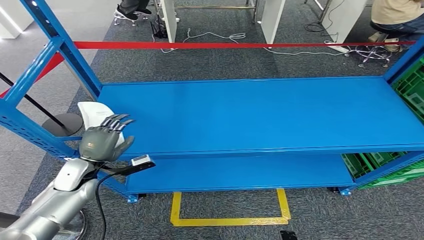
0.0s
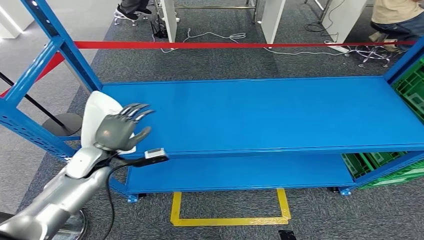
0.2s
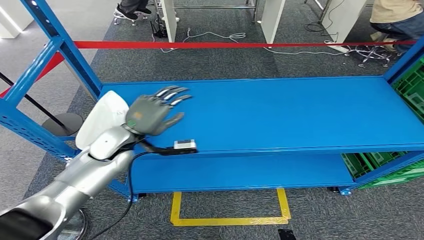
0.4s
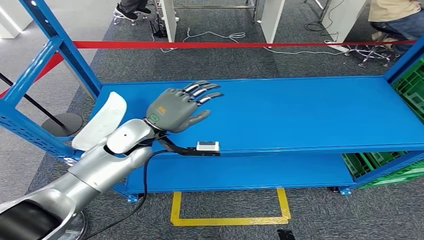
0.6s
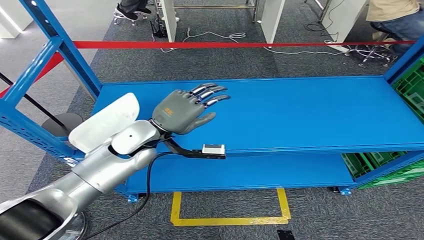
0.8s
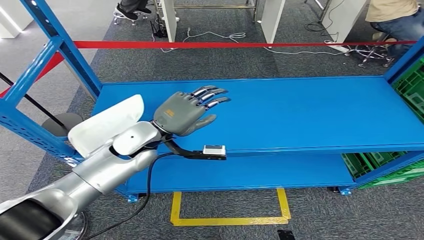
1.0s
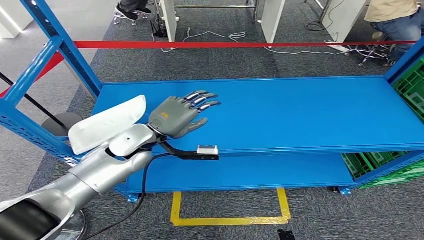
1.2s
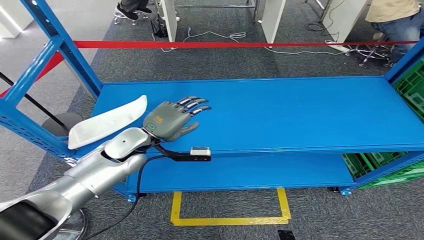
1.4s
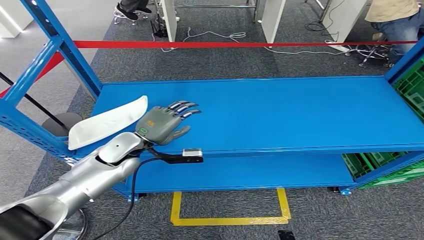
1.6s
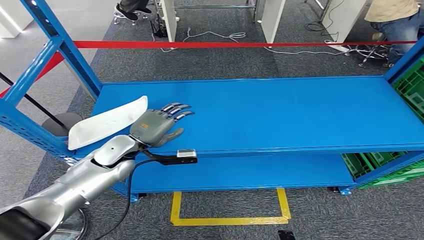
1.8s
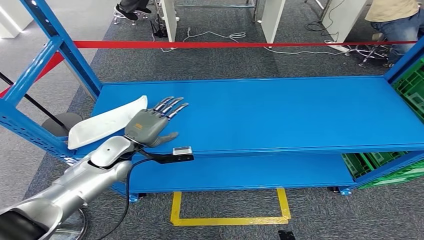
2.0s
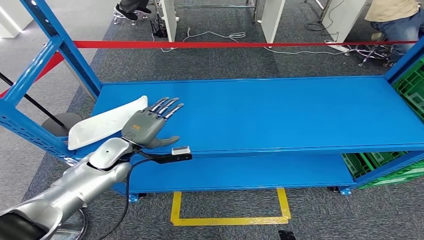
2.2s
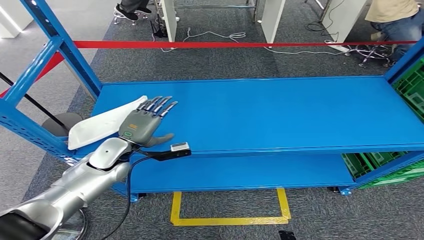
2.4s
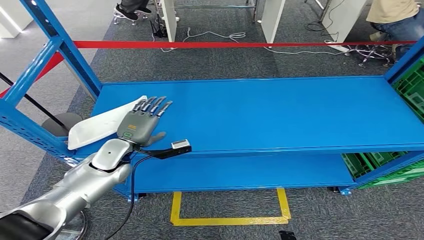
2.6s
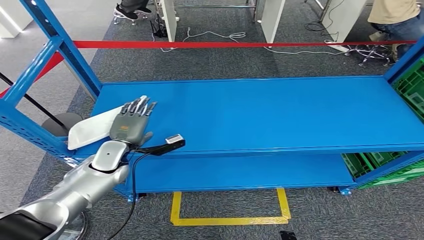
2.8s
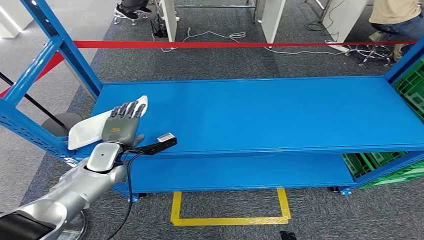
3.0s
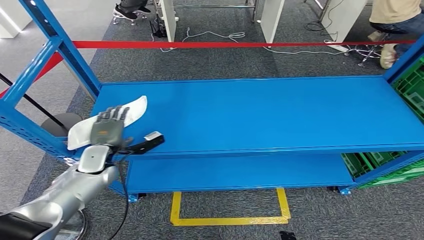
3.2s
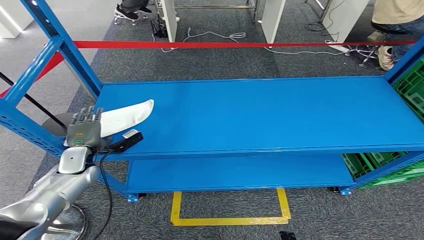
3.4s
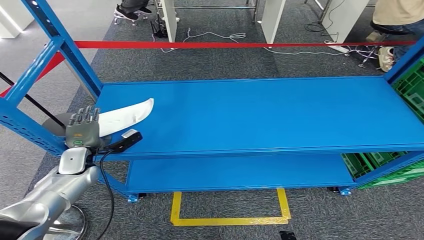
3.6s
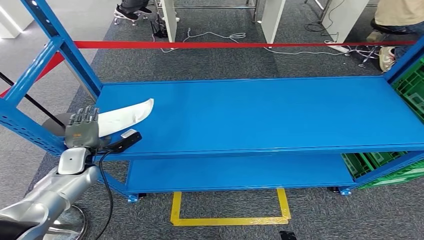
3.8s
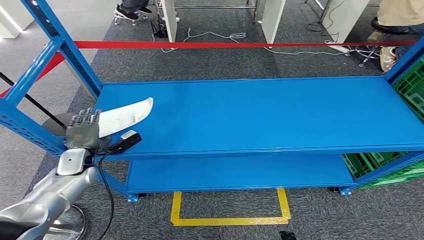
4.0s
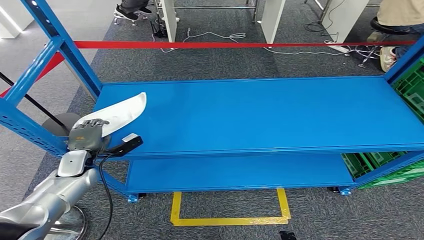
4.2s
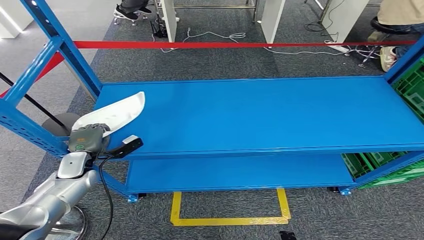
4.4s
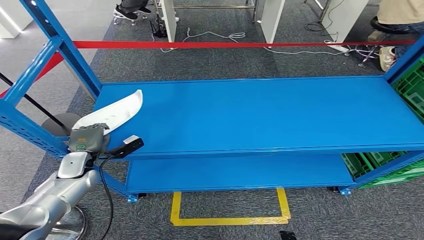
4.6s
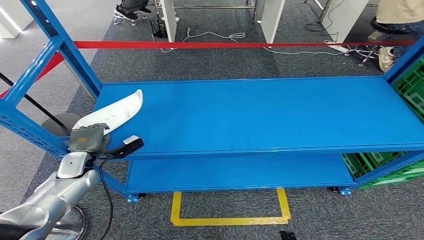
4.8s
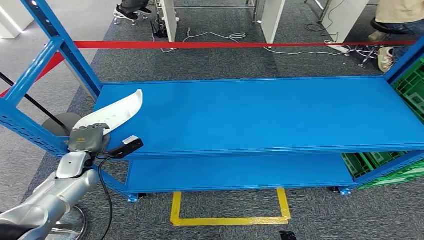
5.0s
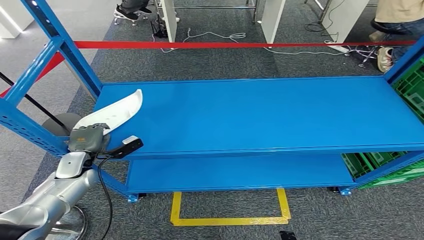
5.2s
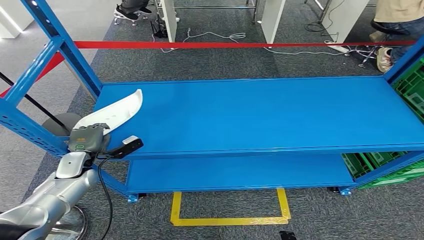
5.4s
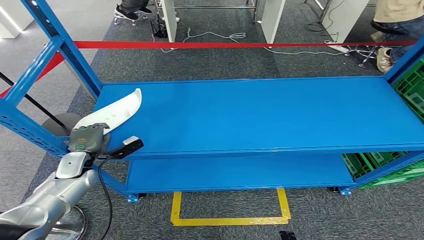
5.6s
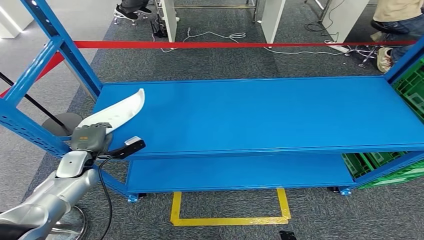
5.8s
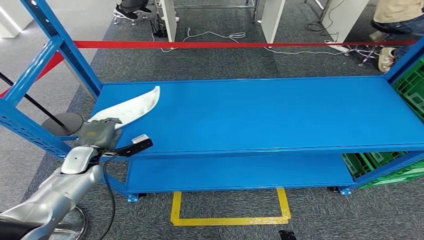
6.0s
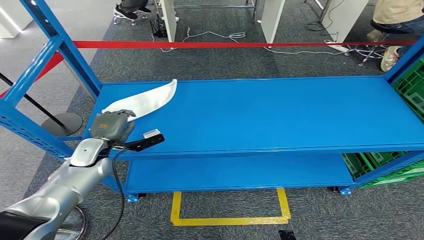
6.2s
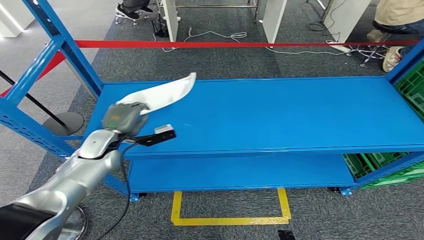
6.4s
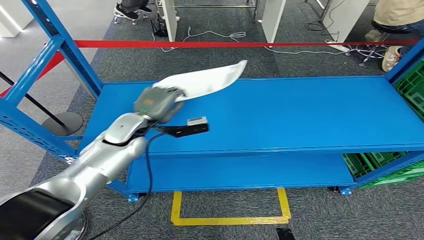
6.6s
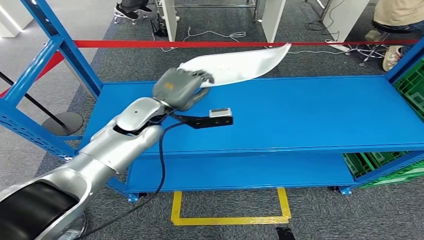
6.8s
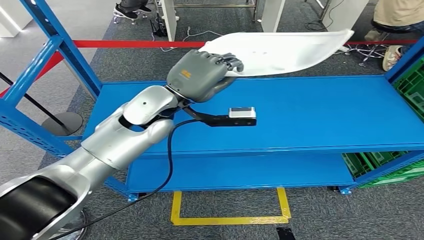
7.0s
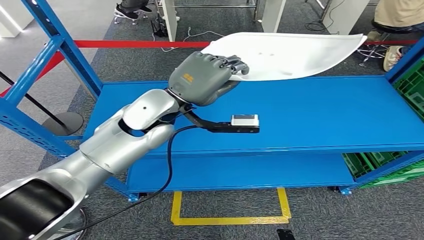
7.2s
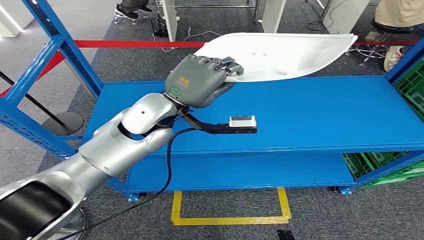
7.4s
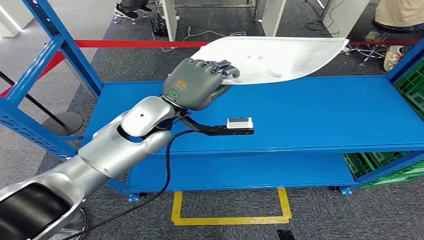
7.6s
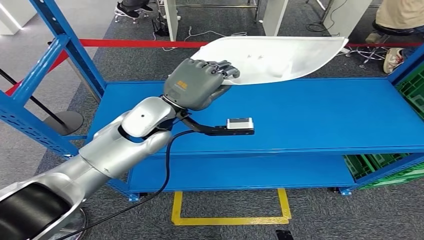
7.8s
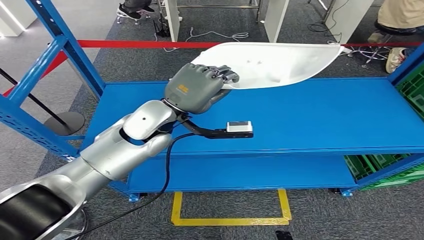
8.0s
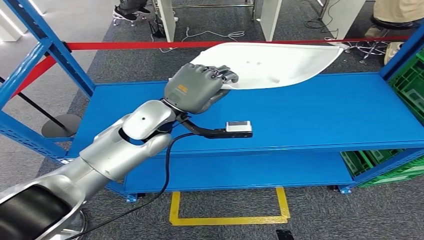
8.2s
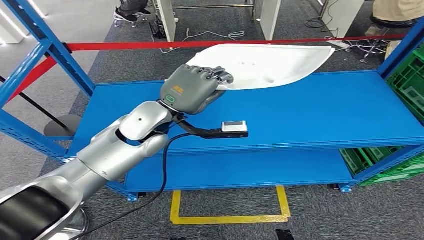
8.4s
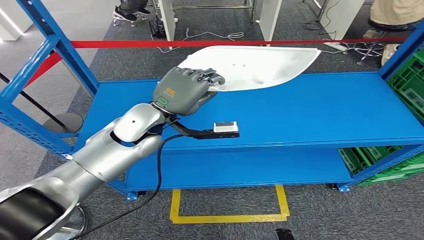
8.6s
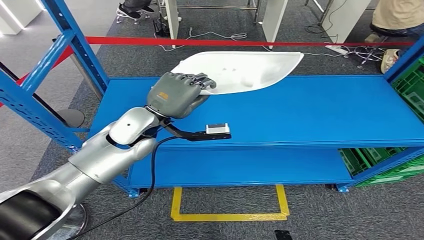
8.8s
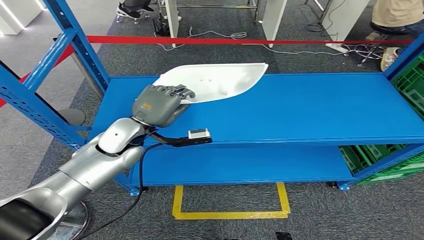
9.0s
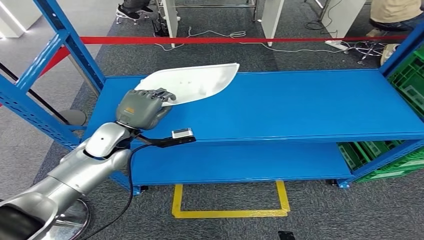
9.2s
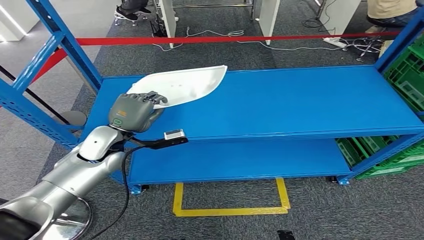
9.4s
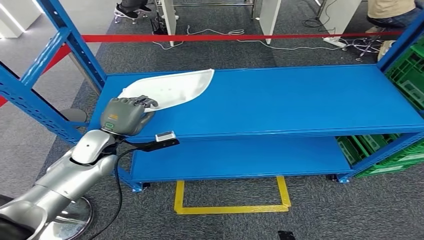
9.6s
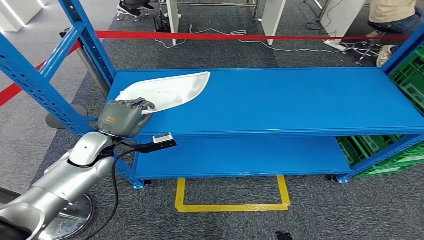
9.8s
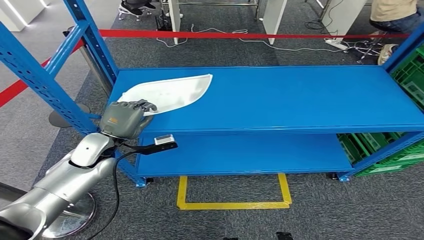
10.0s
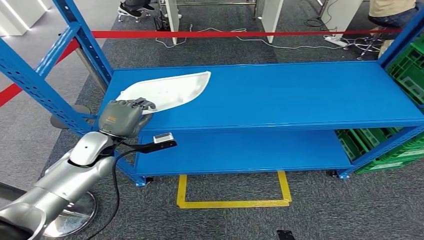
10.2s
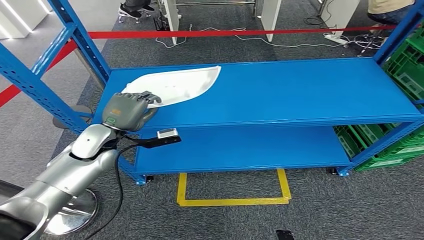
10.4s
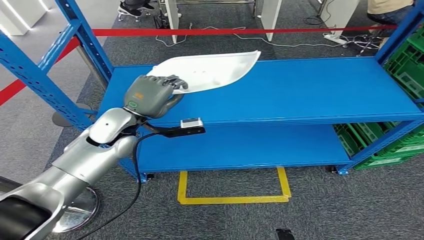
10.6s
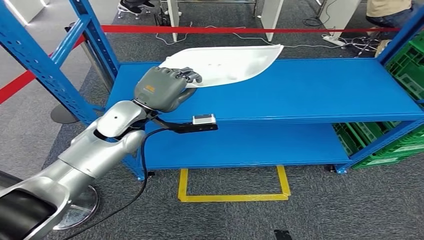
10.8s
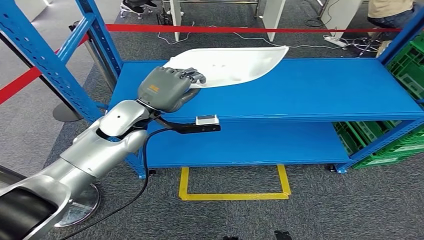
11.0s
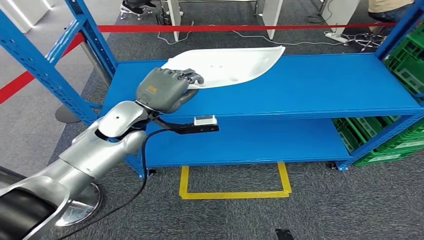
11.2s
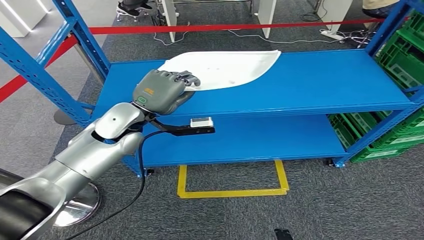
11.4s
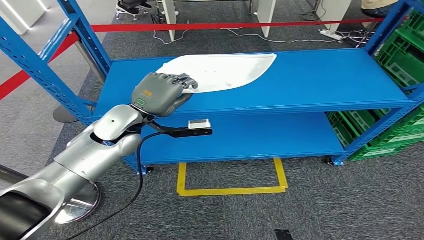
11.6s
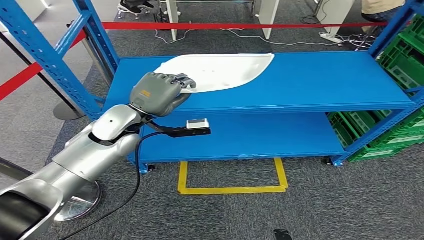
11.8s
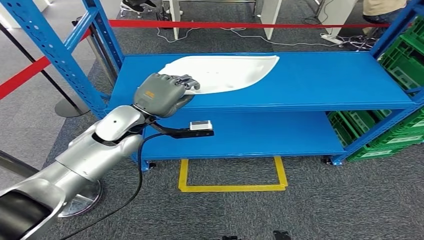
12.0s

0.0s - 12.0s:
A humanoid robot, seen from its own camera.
Step, 0.0s - 7.6s: Pick up the small component from the shelf.
0.0s - 1.6s: The left hand moves to the right and upward, approximately 15 cm.
1.6s - 3.0s: The left hand shifts about 10 cm downward and to the left.
3.0s - 4.4s: The left hand goes about 10 cm to the left.
4.4s - 6.0s: The hands make only small movements.

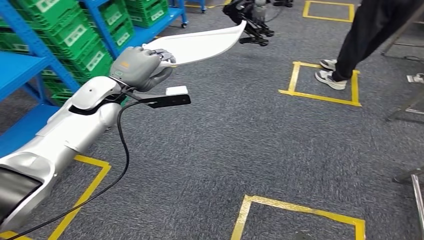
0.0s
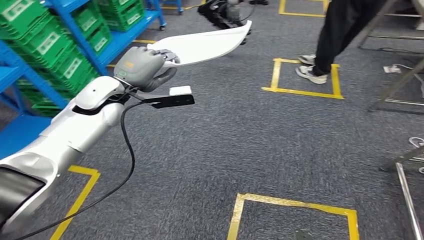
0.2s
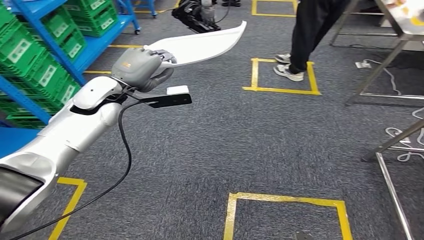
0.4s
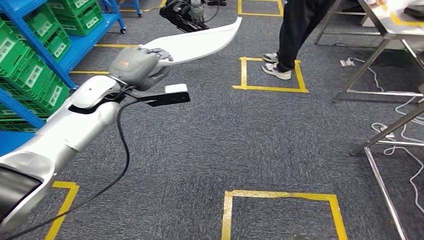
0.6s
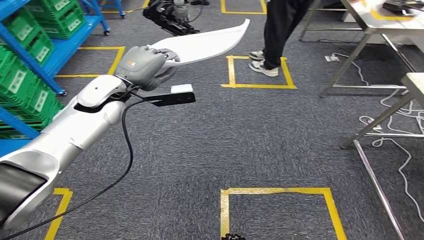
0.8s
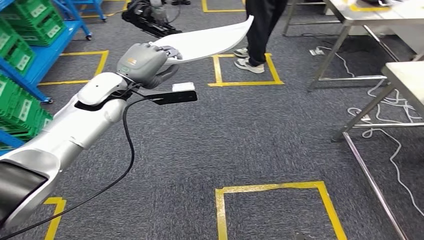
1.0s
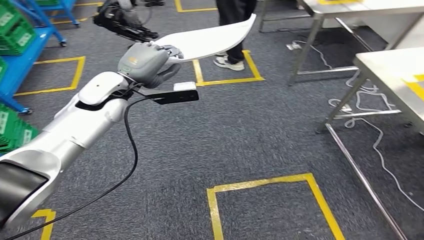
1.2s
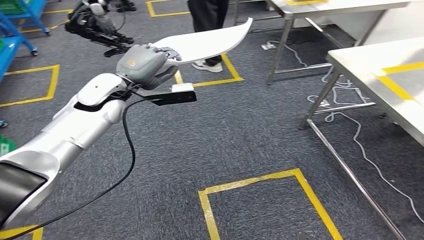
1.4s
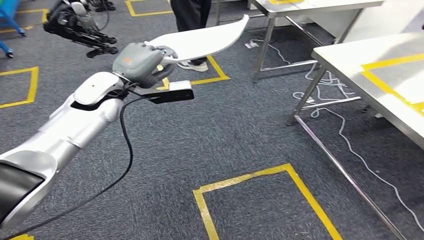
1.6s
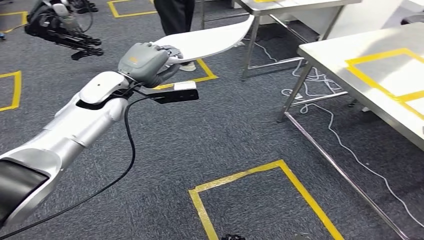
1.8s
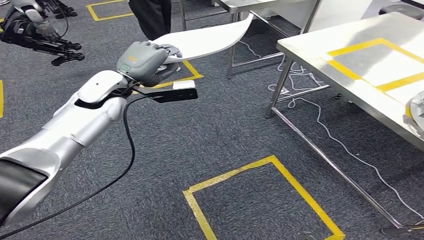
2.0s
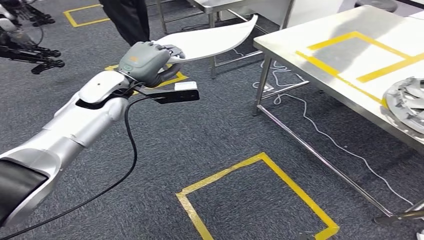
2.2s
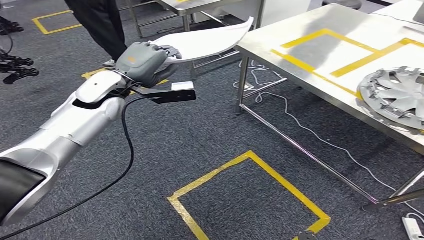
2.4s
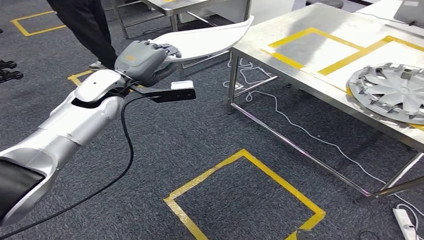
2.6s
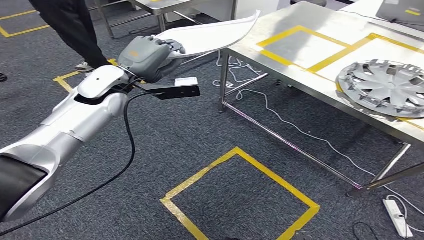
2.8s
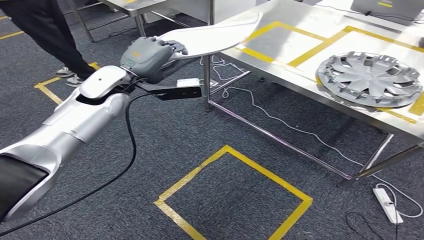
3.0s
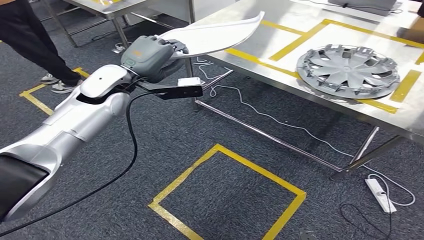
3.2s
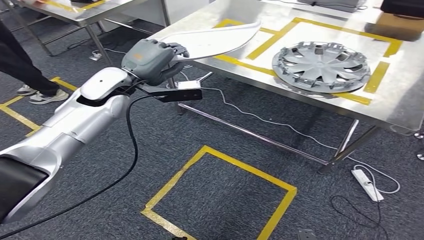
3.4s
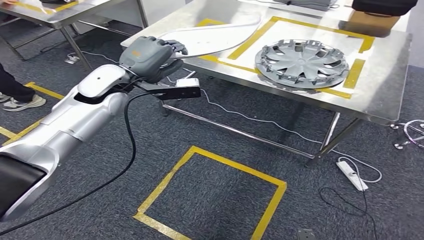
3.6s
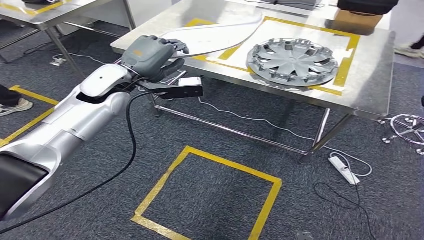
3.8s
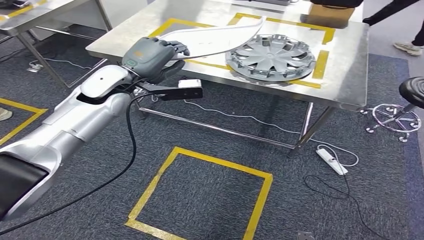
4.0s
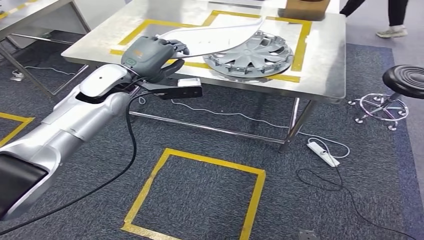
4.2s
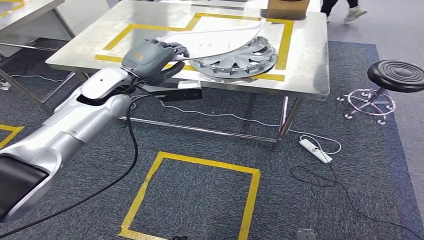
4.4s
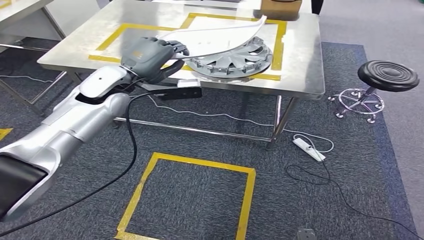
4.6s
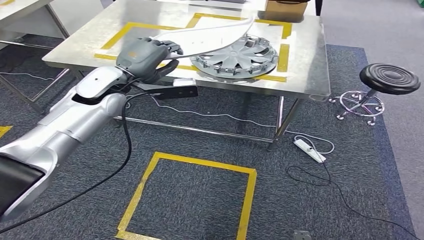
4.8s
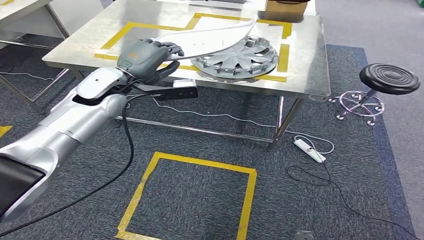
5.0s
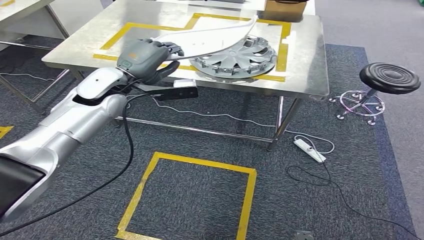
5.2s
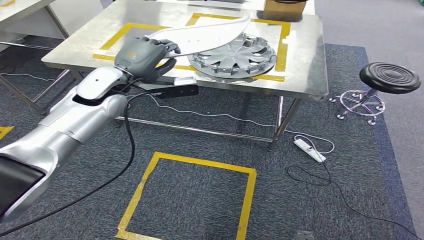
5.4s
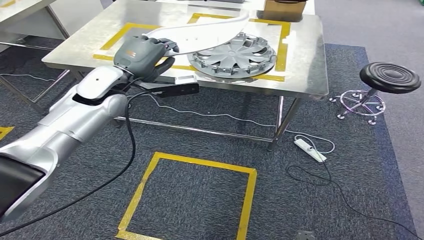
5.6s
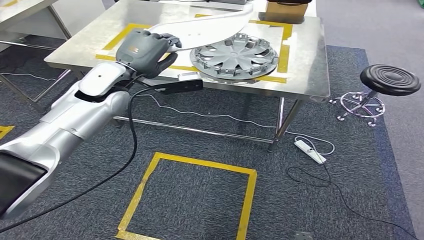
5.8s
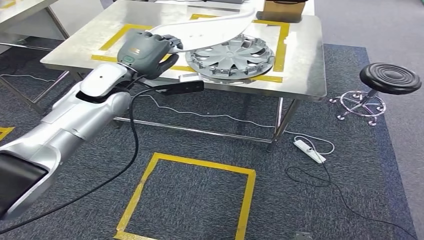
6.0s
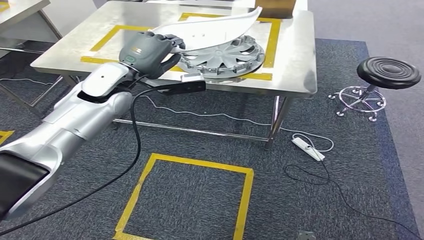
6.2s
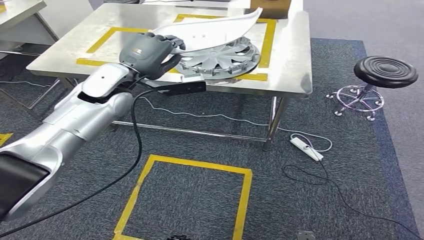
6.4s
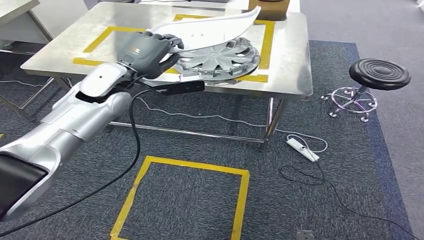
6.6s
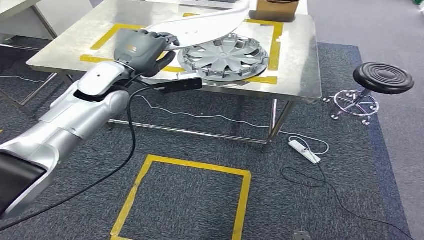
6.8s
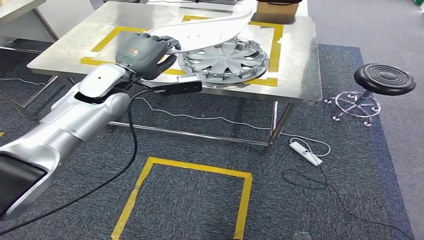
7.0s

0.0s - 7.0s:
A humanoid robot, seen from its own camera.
Step, 0.0s - 5.6s: Move the small component to the workbench.
